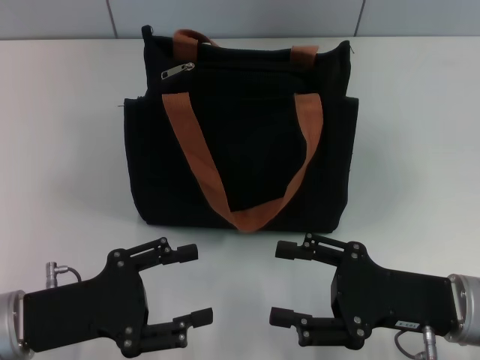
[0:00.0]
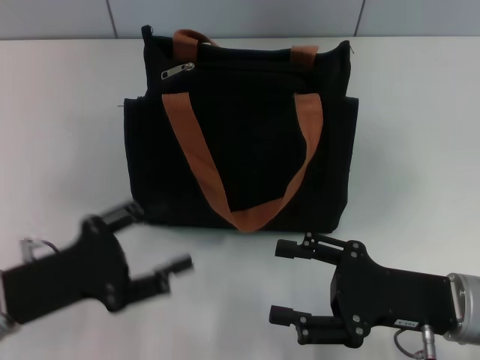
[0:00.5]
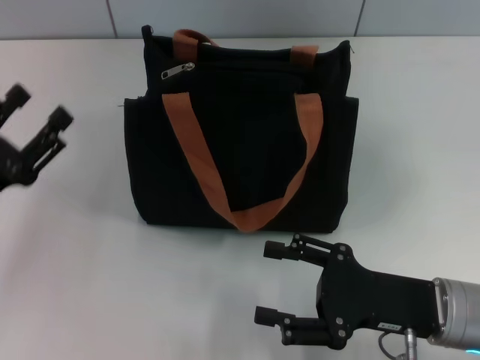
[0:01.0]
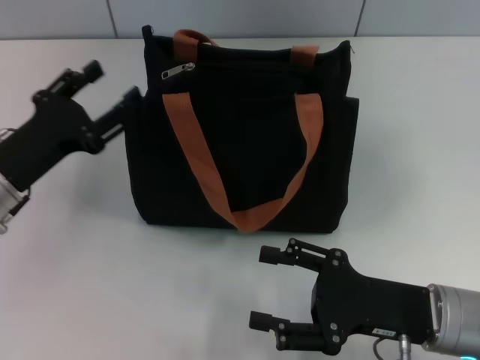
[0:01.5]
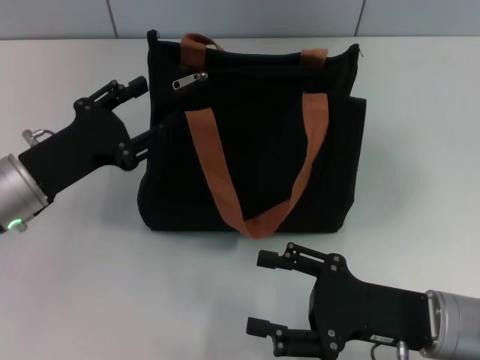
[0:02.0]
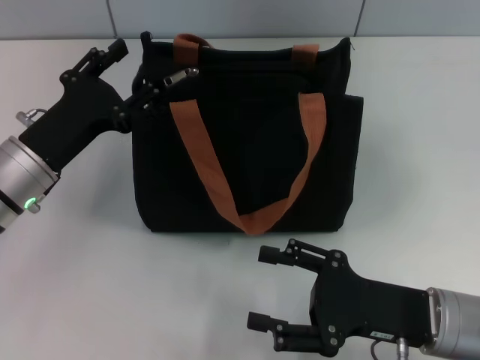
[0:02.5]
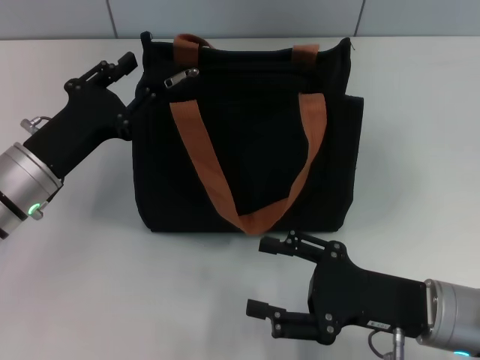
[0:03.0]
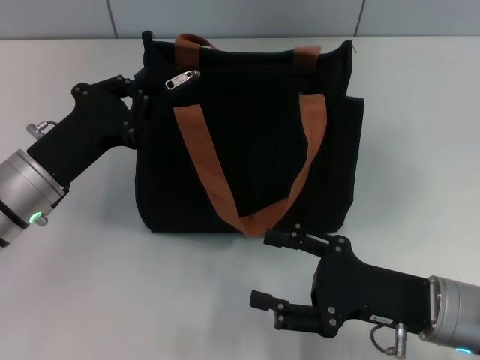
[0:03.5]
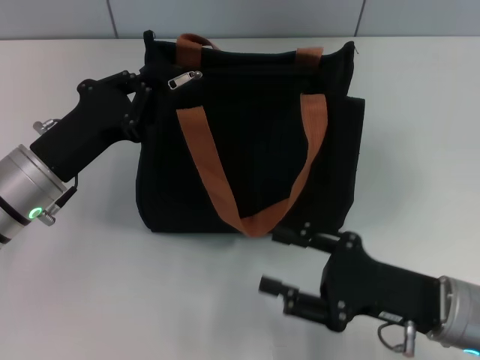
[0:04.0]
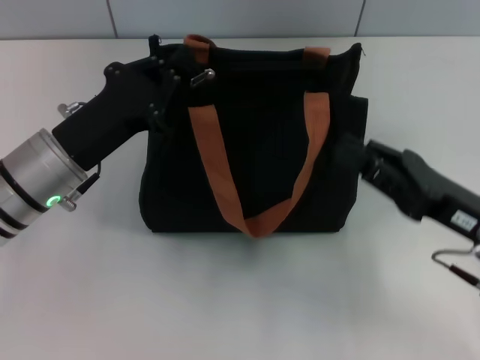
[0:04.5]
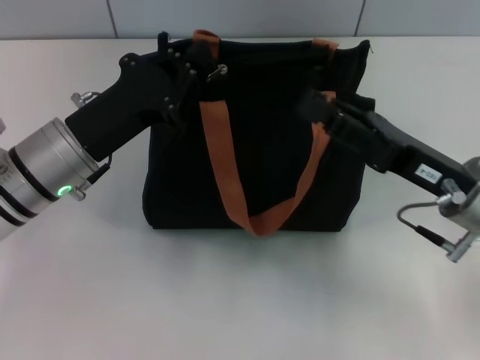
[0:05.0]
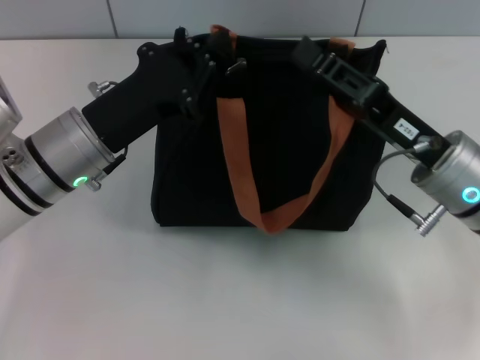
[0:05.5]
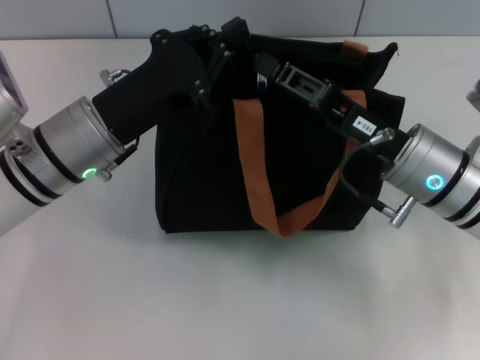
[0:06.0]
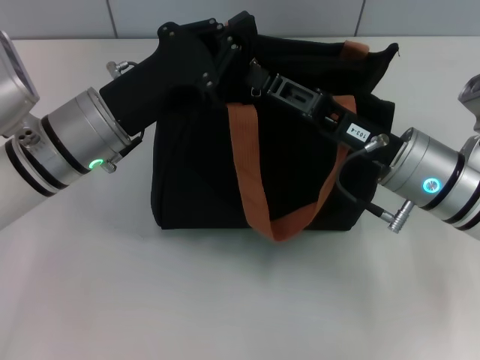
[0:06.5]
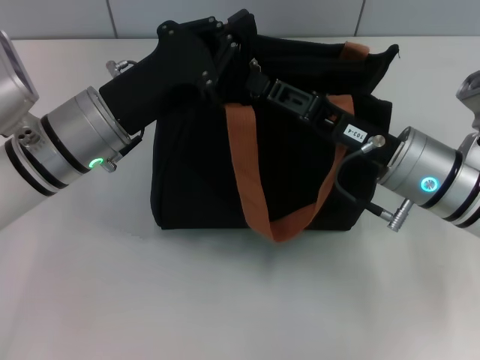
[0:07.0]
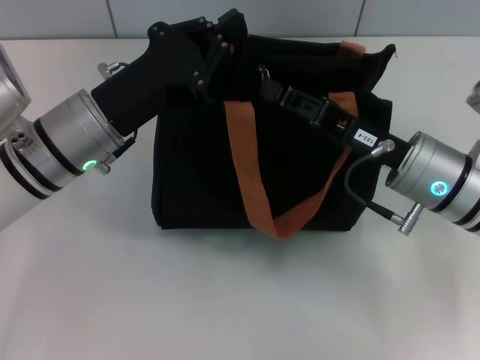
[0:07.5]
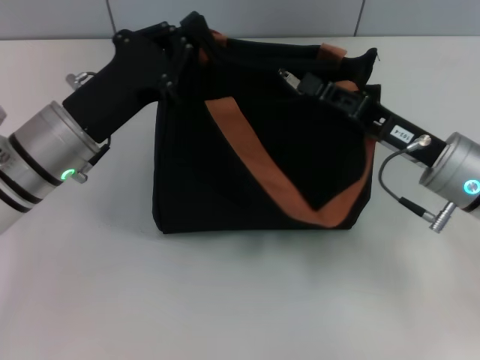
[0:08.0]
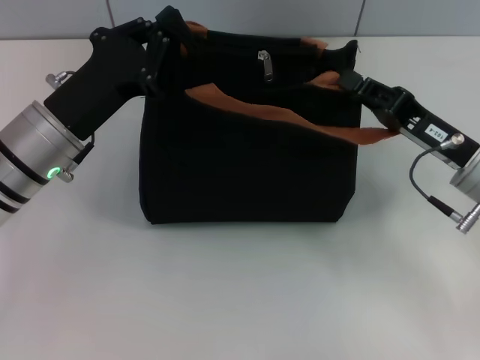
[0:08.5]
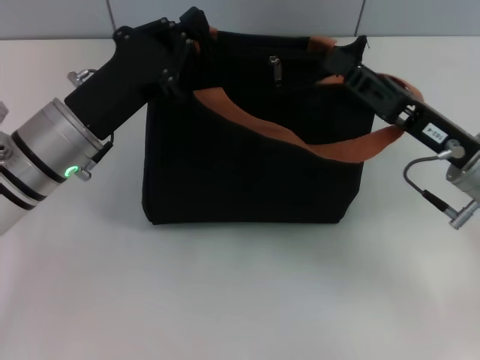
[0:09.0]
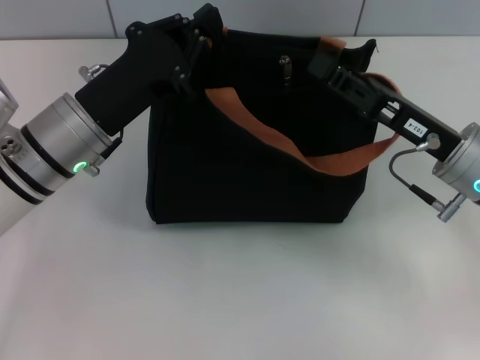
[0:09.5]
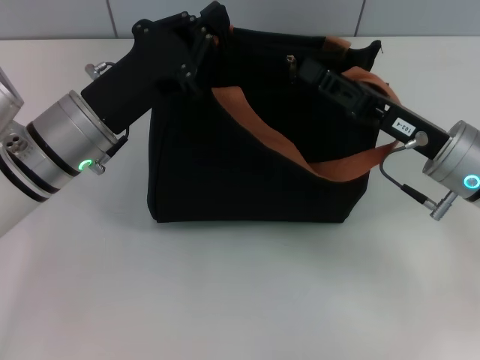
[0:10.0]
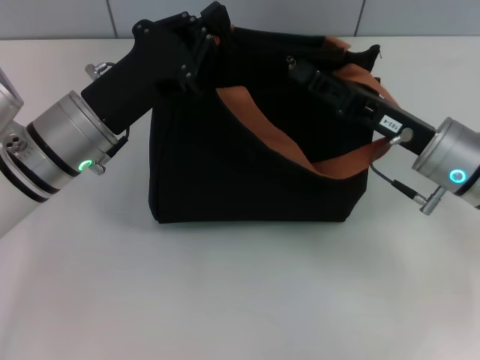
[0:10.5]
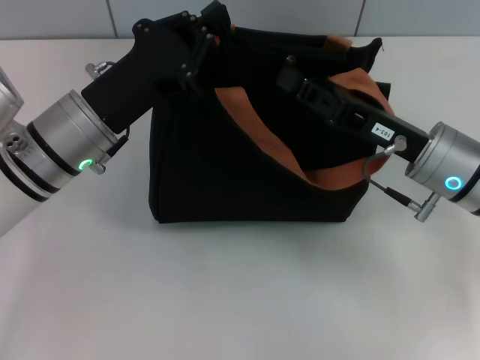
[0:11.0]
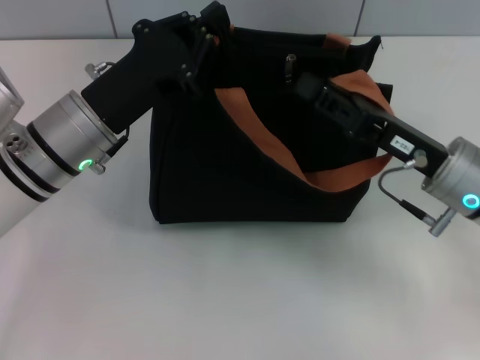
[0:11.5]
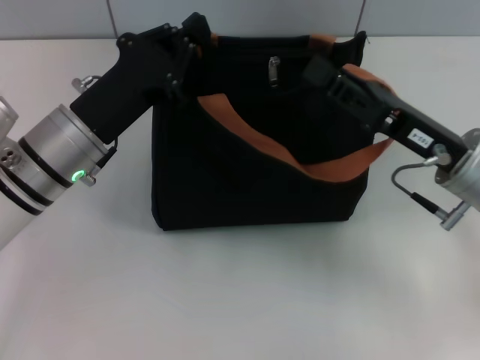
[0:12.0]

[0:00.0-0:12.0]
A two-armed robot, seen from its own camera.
0:00.0 to 0:02.0: The left gripper travels forward by roughly 10 cm.
0:02.0 to 0:04.0: The left gripper closes its fingers.
0:04.0 to 0:06.0: The right gripper heads forward and upward, covering roughly 10 cm, and closes up; the left gripper shifts approximately 5 cm to the right.
0:08.0 to 0:10.0: There are only small adjustments of the grippers.
0:10.0 to 0:12.0: There are only small adjustments of the grippers.

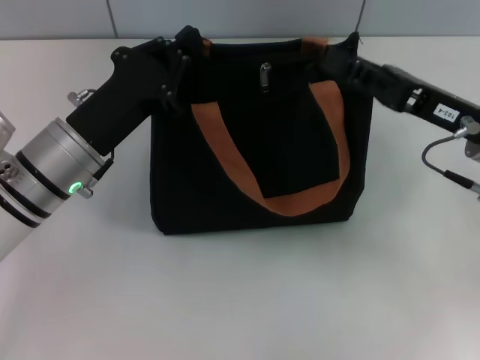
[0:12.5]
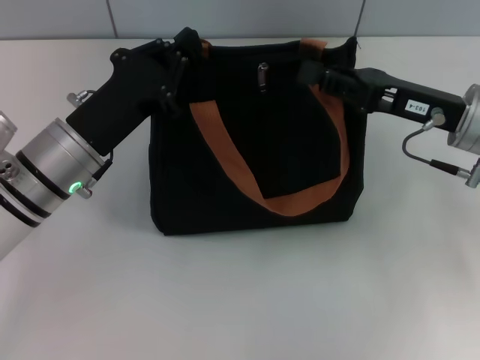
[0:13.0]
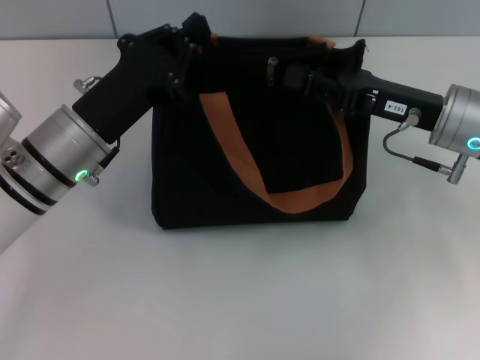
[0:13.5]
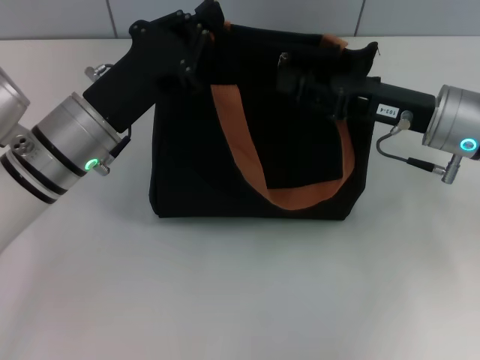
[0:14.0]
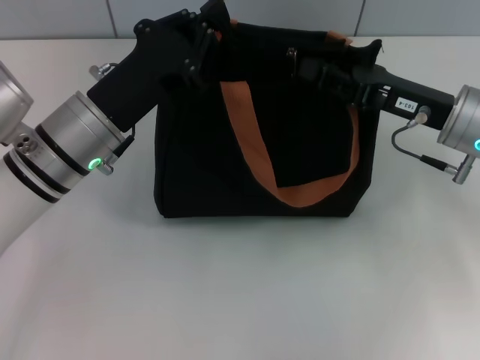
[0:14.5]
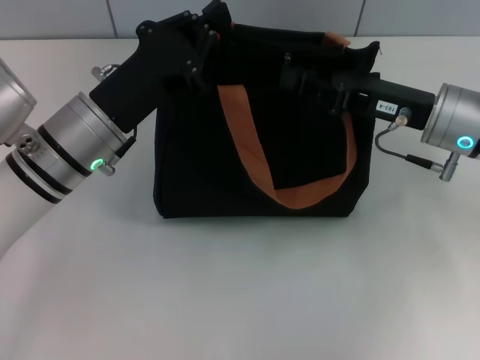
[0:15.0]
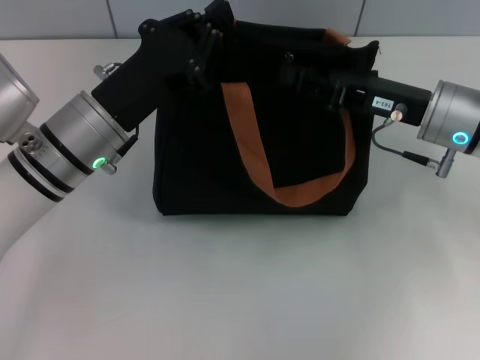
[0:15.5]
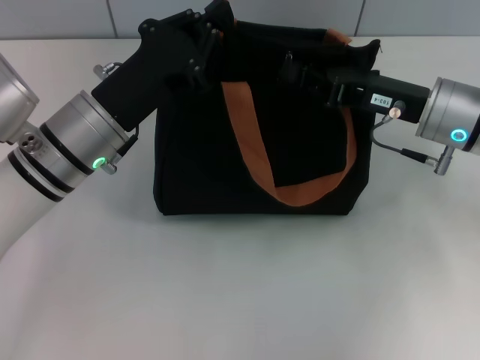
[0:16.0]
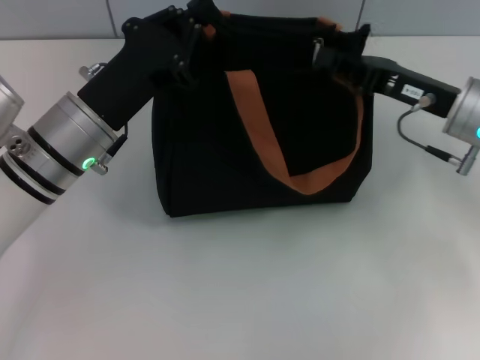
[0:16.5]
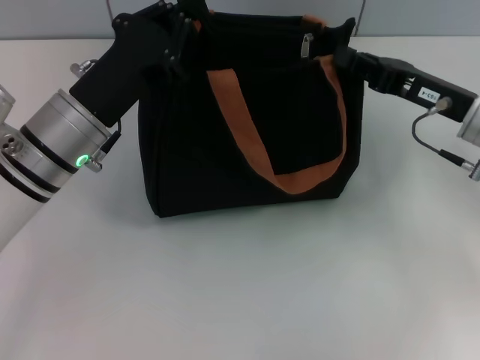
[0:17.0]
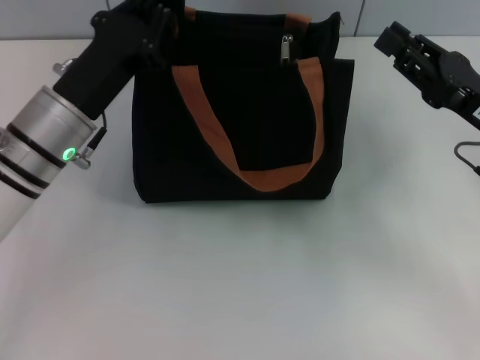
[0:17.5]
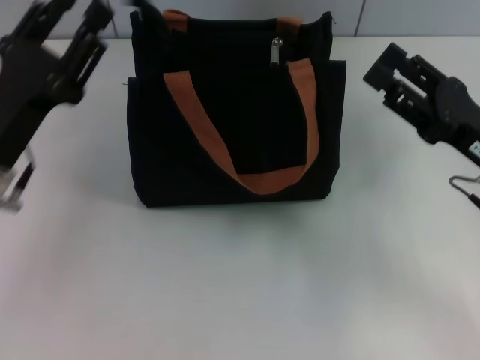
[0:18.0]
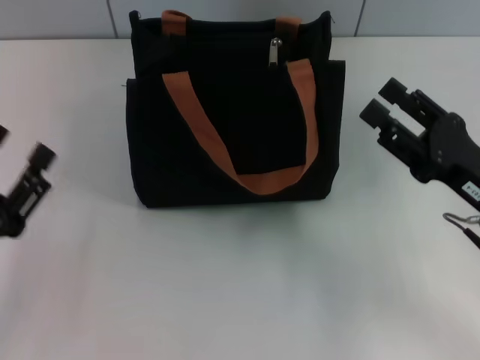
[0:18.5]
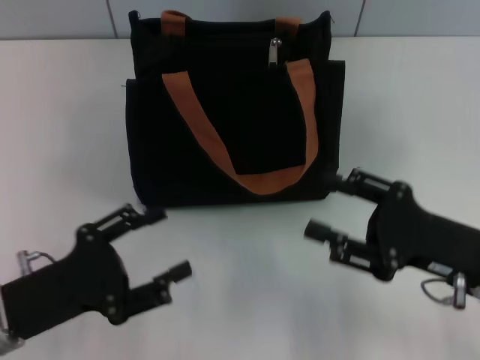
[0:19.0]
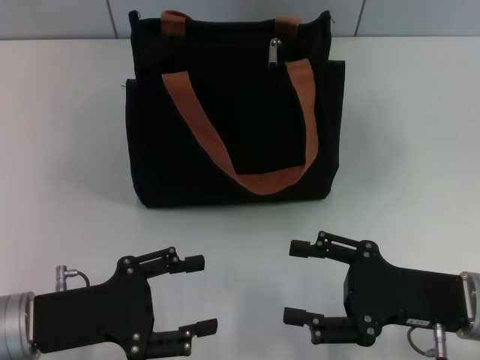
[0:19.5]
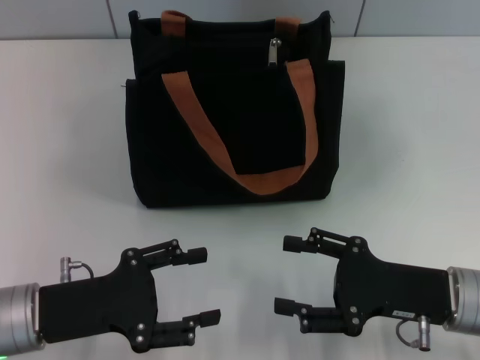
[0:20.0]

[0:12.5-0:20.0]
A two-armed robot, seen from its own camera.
Step, 0:12.5 to 0:16.5: Pull up the zipper with your right hand.
0:14.5 to 0:16.5: There are only small adjustments of the grippers.
0:16.5 to 0:18.0: The left gripper moves to the left and backward, approximately 10 cm, and opens up. The right gripper is displaced backward by roughly 10 cm, and opens its fingers.
0:18.0 to 0:20.0: The left gripper moves backward, approximately 5 cm, and opens up. The right gripper heads backward and downward, covering roughly 10 cm, and opens its fingers.

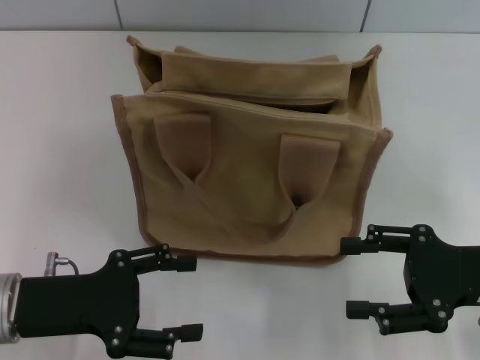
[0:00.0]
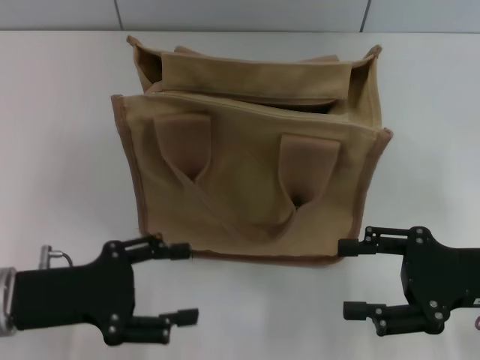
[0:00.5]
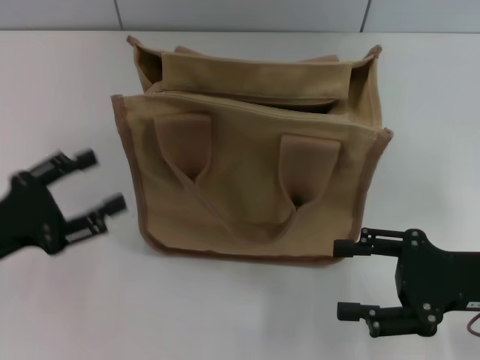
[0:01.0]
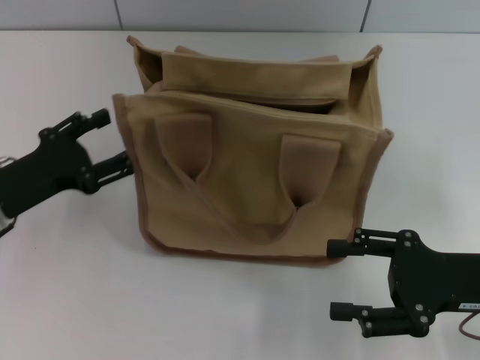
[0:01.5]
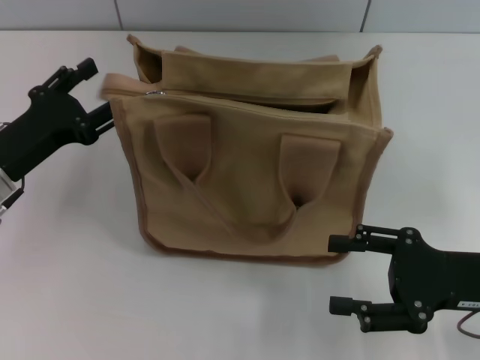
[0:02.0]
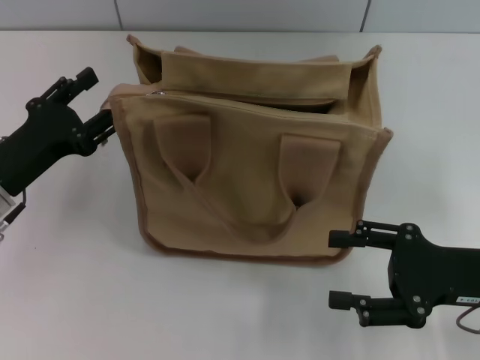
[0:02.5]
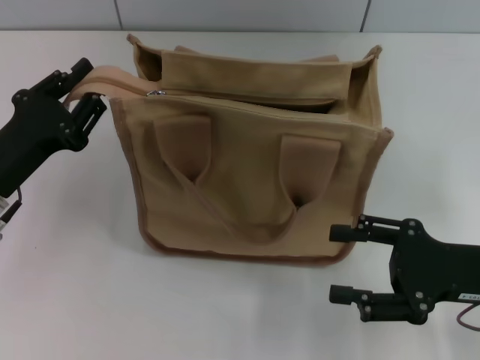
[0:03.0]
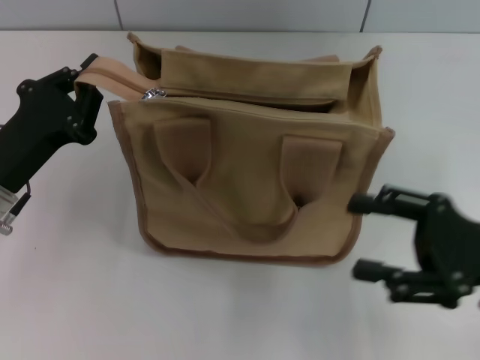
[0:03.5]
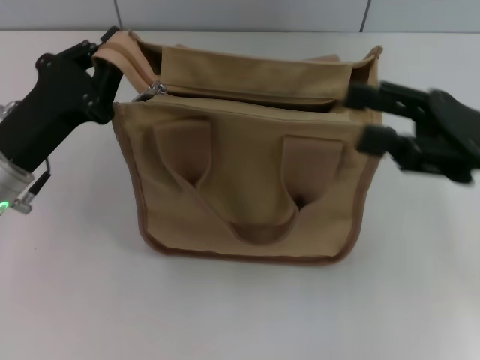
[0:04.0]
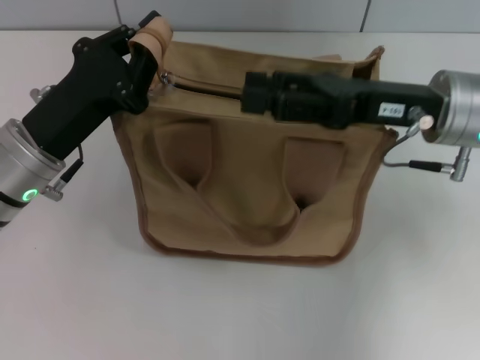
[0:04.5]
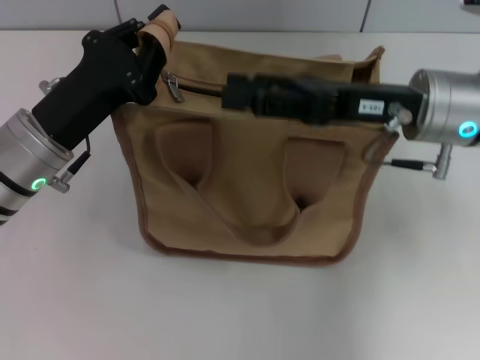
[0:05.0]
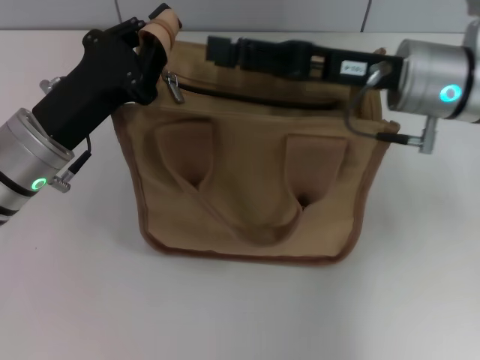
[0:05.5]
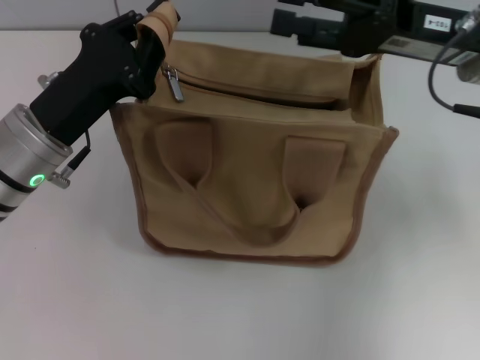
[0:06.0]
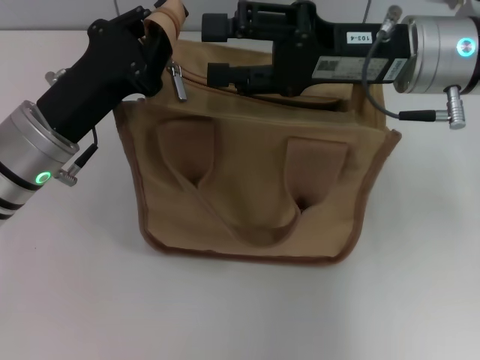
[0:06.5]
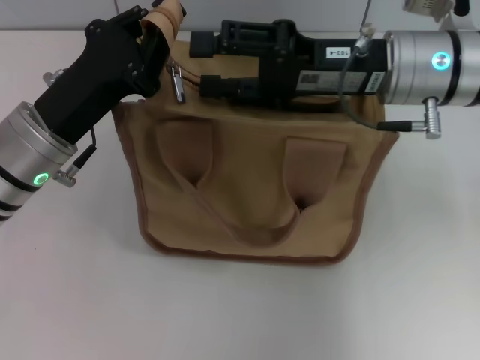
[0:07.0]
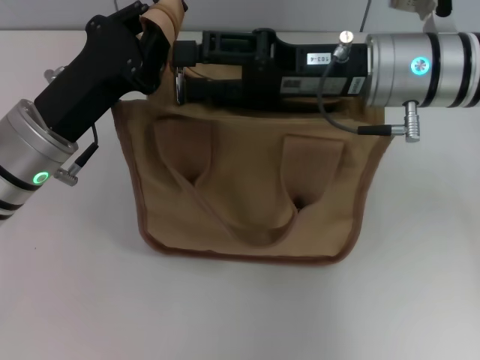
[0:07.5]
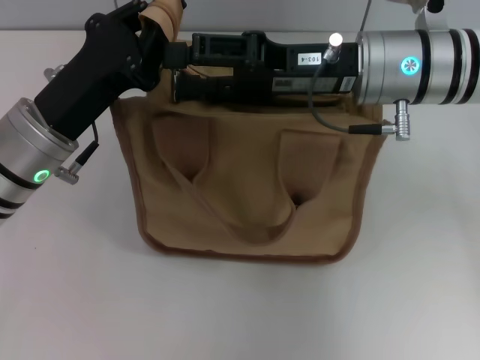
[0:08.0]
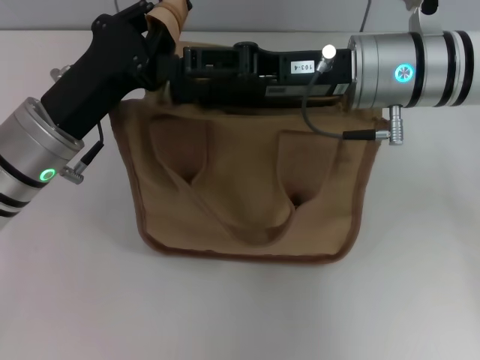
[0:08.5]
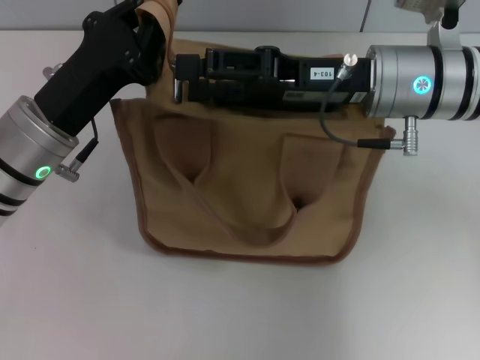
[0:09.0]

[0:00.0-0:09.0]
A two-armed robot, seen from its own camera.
0:00.0 to 0:02.0: The left gripper goes about 10 cm forward.
0:02.0 to 0:04.5: The right gripper heads forward, upward and to the left, covering roughly 15 cm. The left gripper is displaced to the right by approximately 5 cm, and closes.
0:04.5 to 0:07.0: The right gripper changes place by some 5 cm.
0:07.0 to 0:09.0: There are only small adjustments of the grippers.
